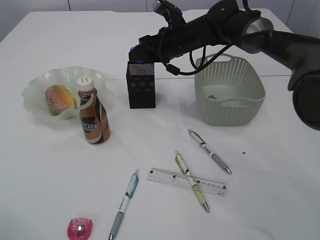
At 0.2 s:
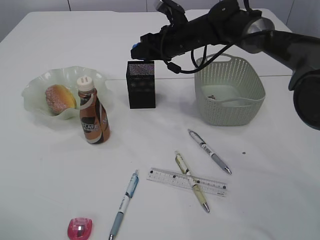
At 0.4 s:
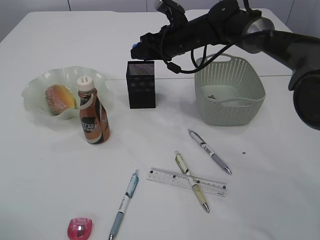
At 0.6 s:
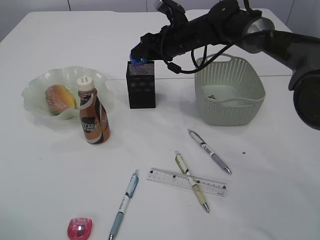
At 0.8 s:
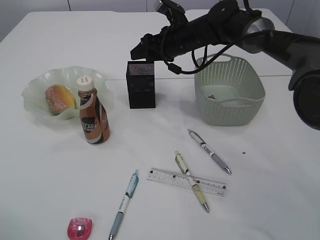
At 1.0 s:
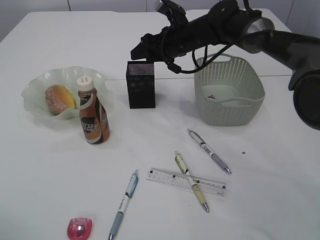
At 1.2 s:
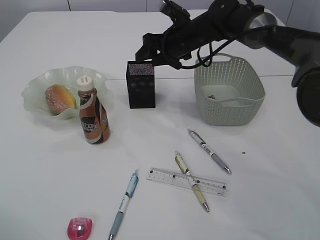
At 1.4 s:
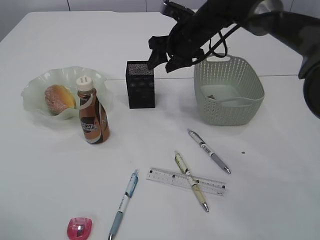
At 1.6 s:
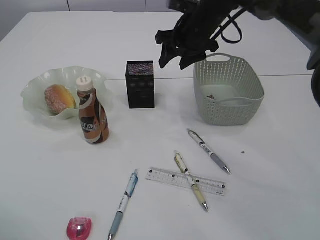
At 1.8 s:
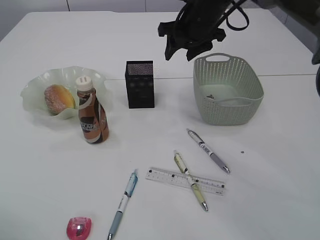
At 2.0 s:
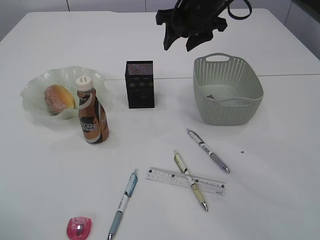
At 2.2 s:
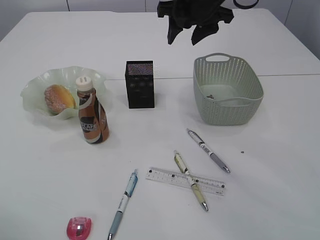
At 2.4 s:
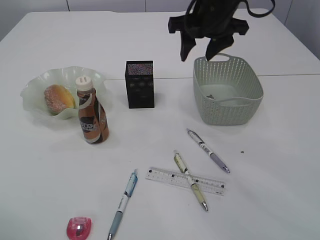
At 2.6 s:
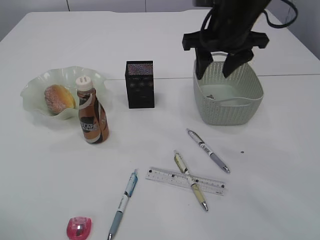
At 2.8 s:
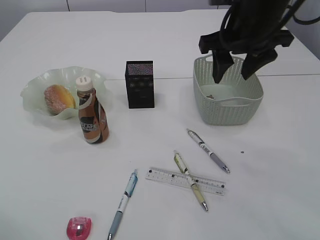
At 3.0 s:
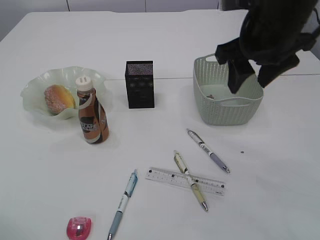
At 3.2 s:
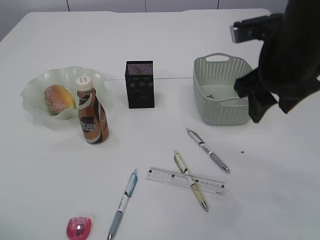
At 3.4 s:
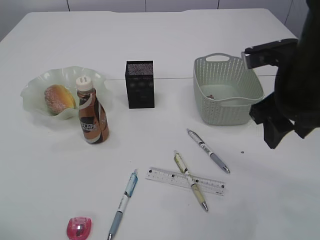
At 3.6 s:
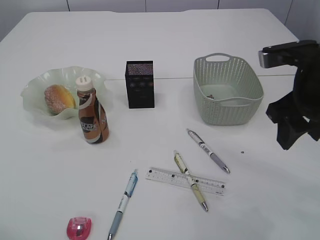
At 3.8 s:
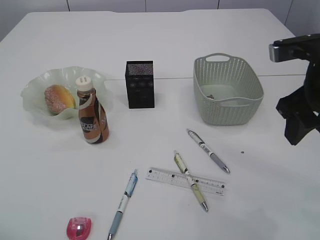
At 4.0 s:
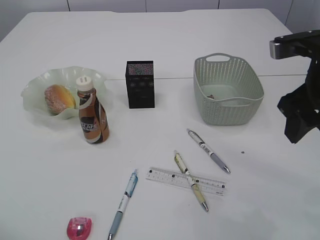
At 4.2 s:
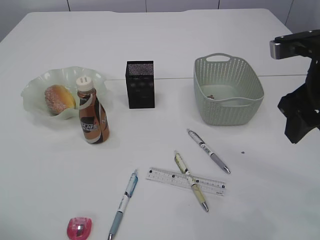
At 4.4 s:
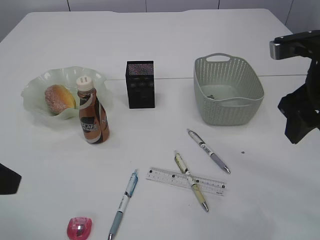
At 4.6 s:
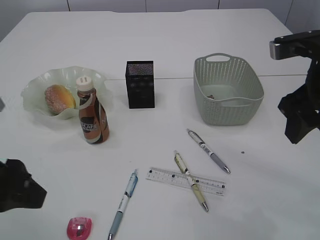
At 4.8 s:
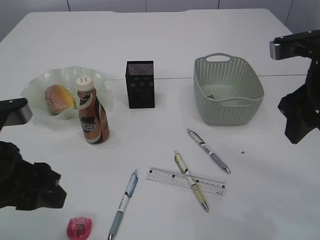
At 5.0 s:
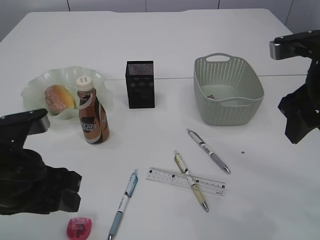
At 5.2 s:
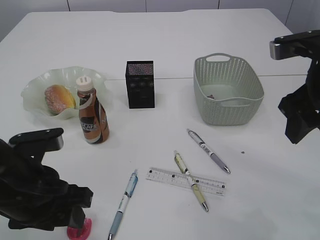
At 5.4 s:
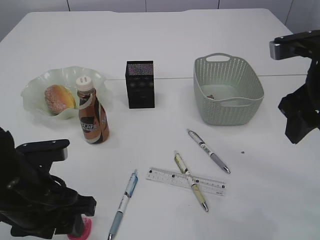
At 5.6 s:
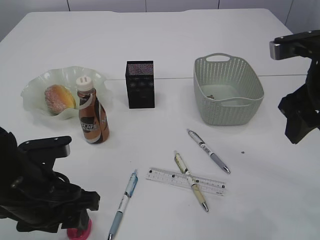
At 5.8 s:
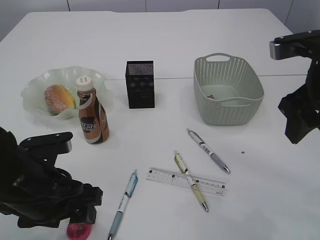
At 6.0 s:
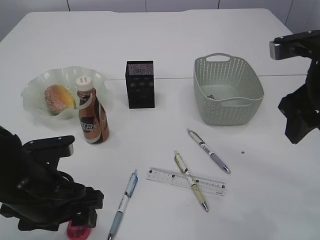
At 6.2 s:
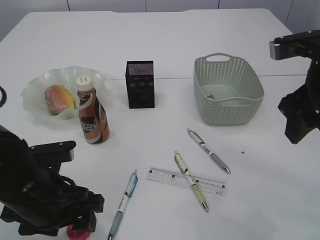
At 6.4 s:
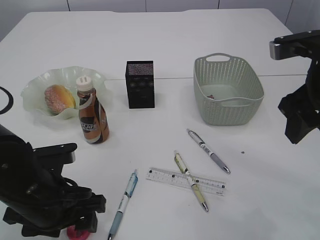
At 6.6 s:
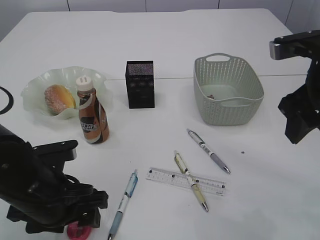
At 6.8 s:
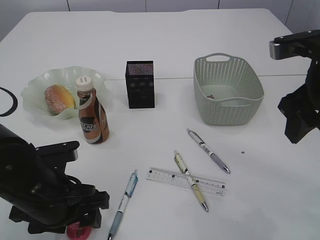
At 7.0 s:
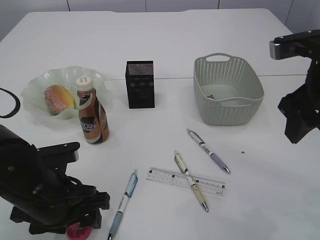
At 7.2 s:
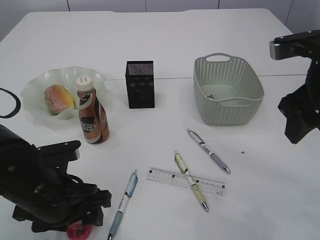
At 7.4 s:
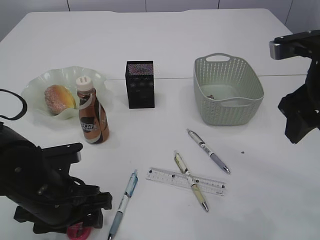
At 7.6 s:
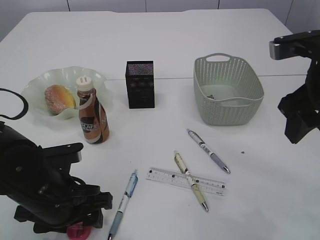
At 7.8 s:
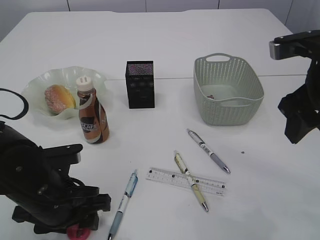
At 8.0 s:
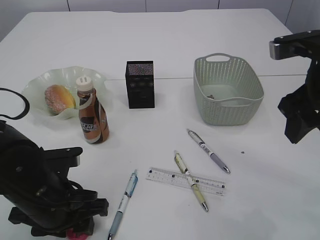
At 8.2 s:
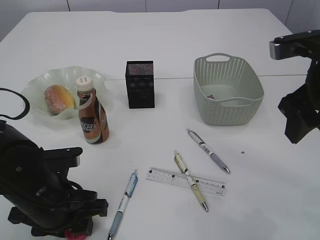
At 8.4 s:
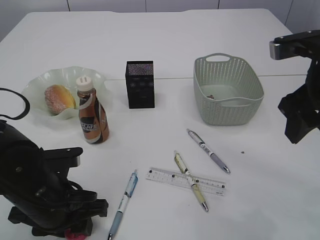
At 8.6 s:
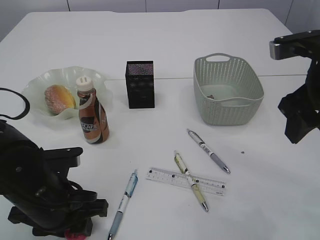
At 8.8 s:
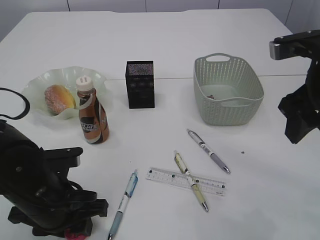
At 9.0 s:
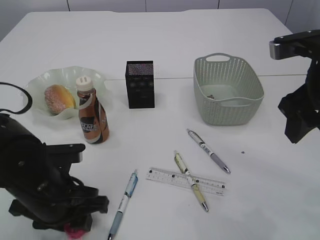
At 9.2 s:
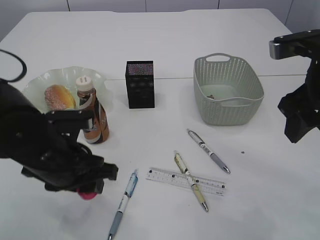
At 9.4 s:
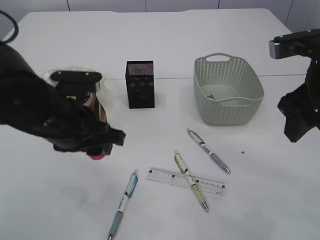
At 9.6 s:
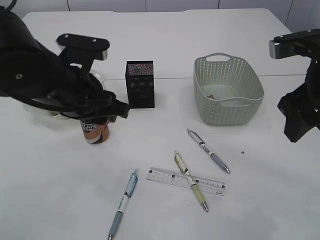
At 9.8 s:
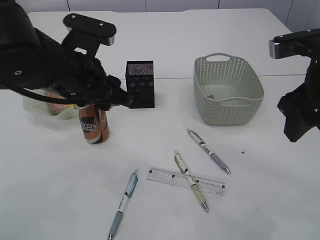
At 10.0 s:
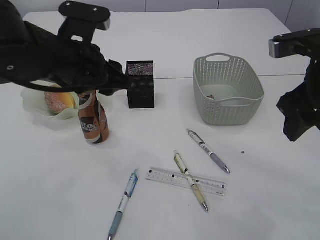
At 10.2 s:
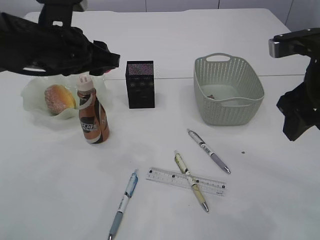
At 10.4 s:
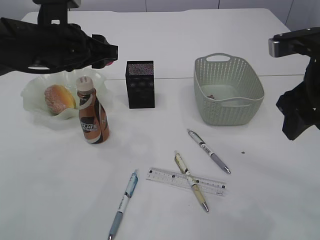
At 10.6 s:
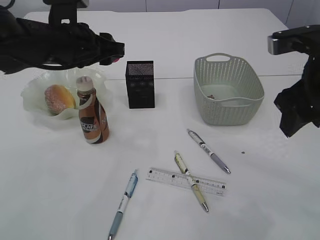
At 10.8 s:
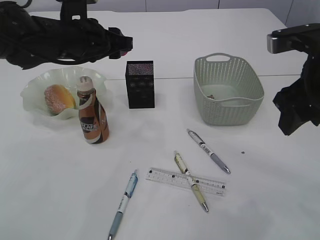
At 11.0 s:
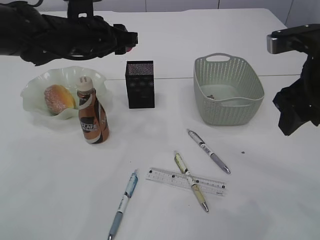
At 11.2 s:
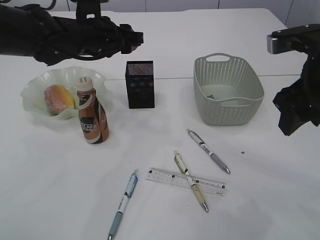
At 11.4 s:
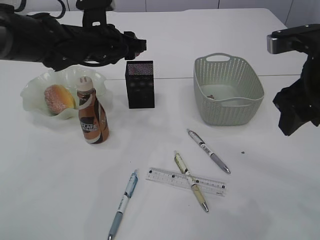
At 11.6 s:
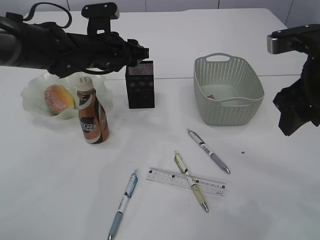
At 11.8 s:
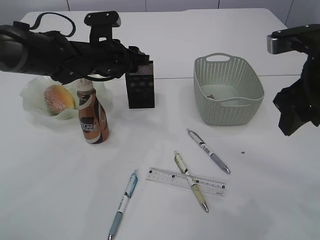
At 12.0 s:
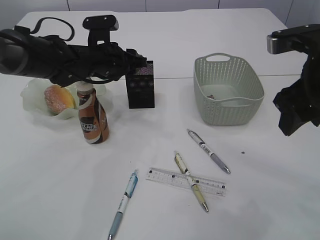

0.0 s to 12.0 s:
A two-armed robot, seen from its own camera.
Step, 1.4 to 9.2 s: Pick up the red pencil sharpener.
0.0 to 1.6 s: The right gripper moves about 5 cm.
1.6 to 3.0 s: The right gripper heads backward and upward, covering some 20 cm.
3.0 to 4.4 s: The left gripper is displaced to the right by some 5 cm, while the right gripper travels backward and to the right by roughly 10 cm.
4.4 to 6.0 s: The left gripper moves downward and to the right, some 15 cm, and opens.
6.0 to 7.6 s: The grippers move only a little.
7.6 to 9.0 s: The left gripper closes.
9.0 to 10.4 s: The left gripper heads upward and forward, covering some 20 cm.
10.4 to 12.0 s: The left gripper goes approximately 10 cm forward and downward.

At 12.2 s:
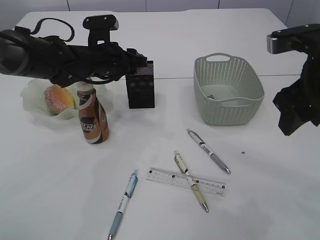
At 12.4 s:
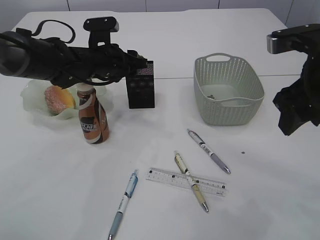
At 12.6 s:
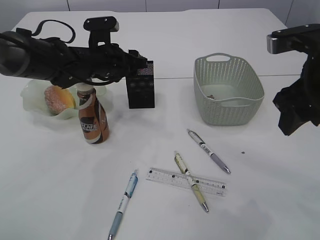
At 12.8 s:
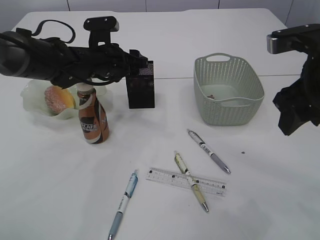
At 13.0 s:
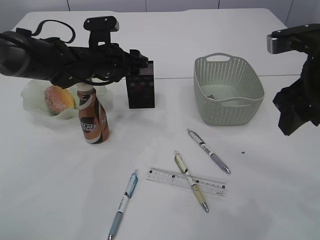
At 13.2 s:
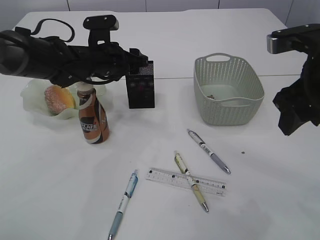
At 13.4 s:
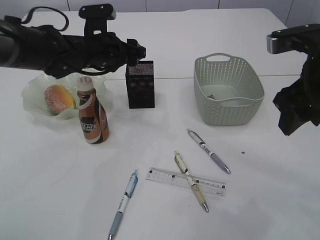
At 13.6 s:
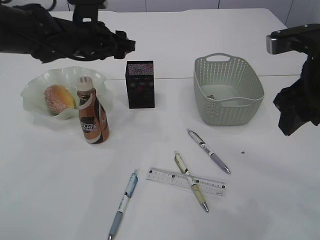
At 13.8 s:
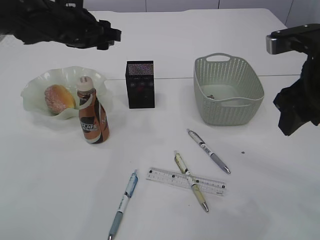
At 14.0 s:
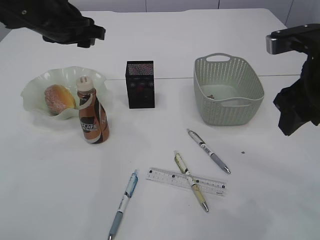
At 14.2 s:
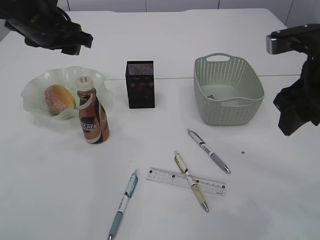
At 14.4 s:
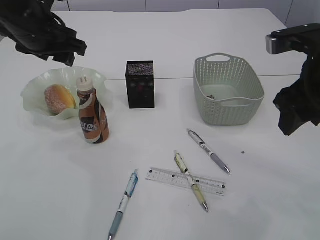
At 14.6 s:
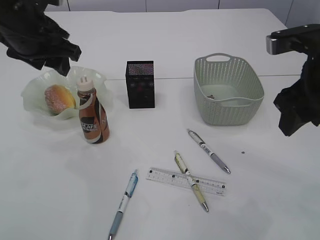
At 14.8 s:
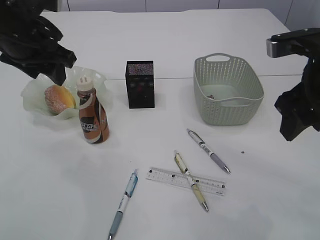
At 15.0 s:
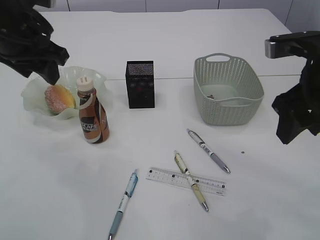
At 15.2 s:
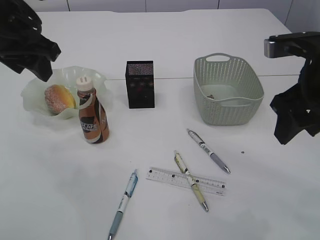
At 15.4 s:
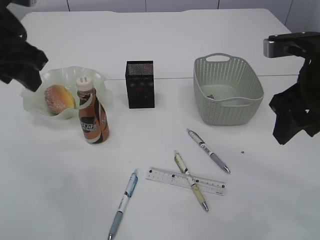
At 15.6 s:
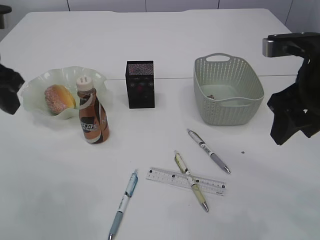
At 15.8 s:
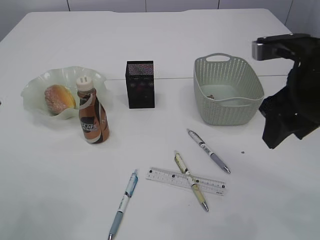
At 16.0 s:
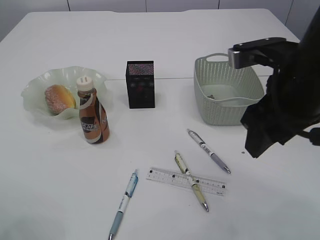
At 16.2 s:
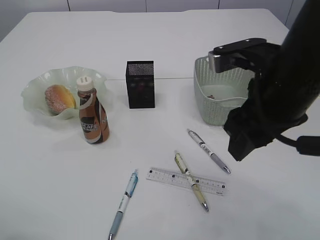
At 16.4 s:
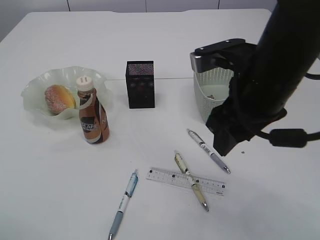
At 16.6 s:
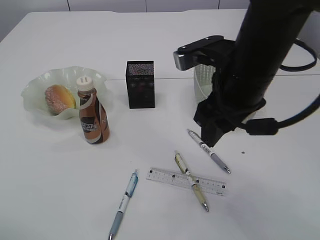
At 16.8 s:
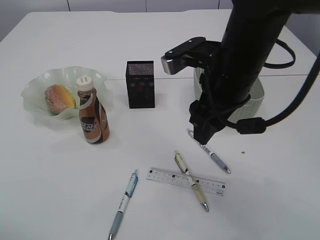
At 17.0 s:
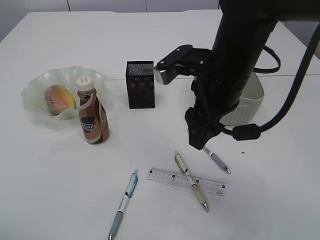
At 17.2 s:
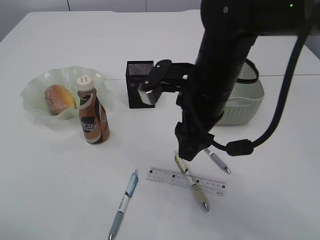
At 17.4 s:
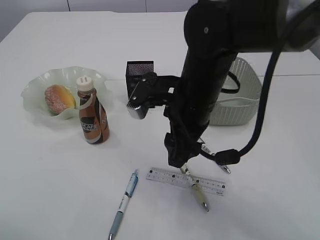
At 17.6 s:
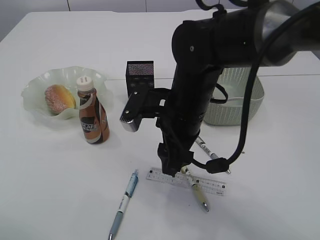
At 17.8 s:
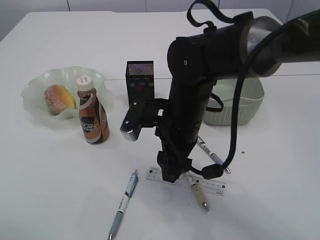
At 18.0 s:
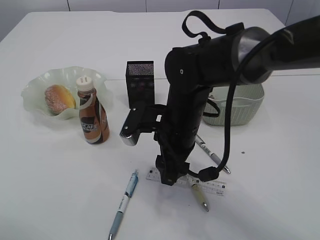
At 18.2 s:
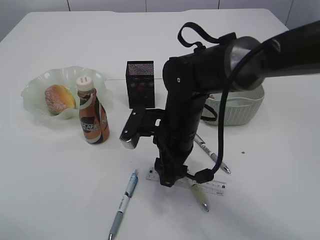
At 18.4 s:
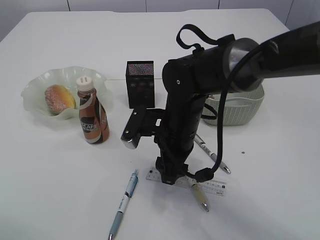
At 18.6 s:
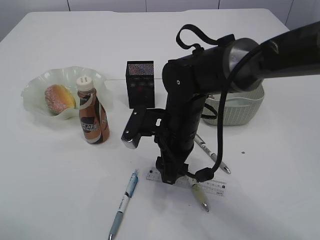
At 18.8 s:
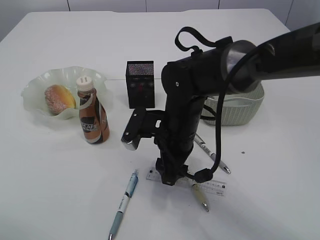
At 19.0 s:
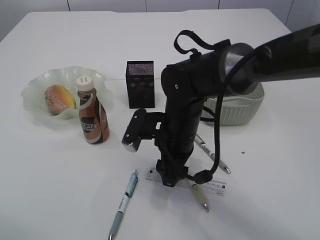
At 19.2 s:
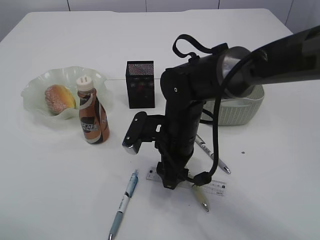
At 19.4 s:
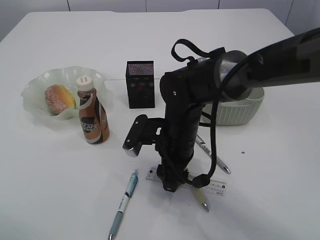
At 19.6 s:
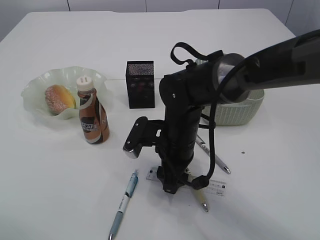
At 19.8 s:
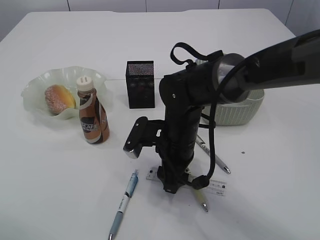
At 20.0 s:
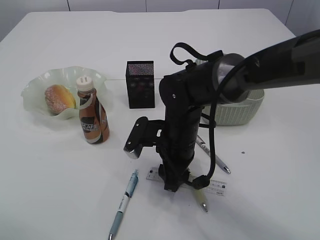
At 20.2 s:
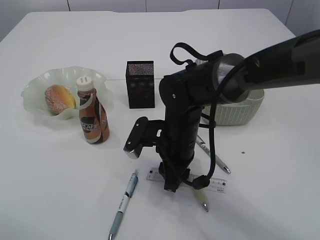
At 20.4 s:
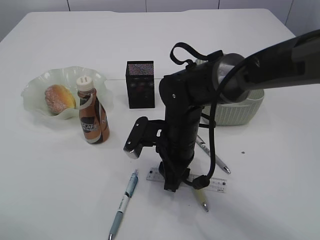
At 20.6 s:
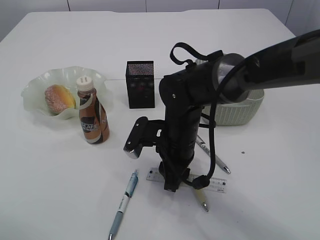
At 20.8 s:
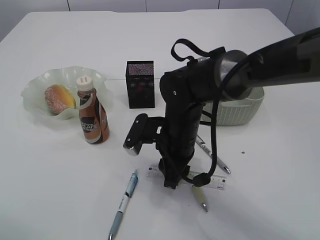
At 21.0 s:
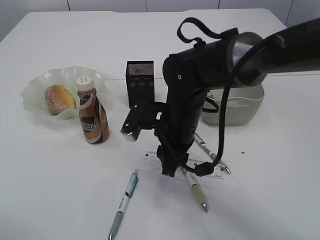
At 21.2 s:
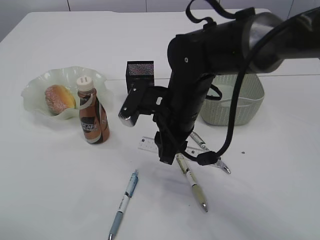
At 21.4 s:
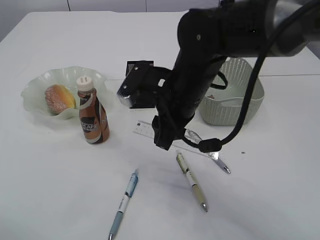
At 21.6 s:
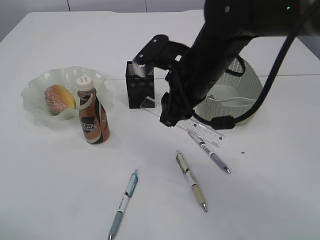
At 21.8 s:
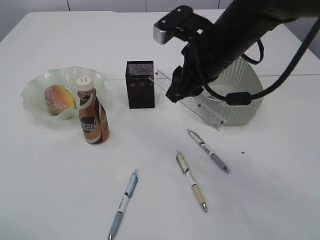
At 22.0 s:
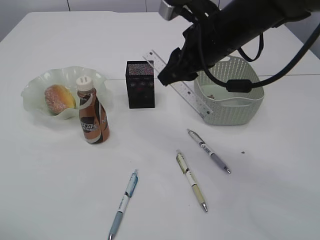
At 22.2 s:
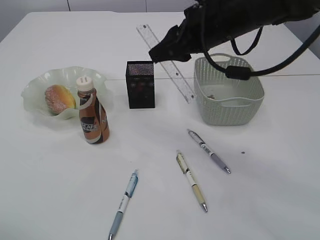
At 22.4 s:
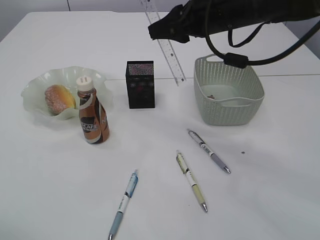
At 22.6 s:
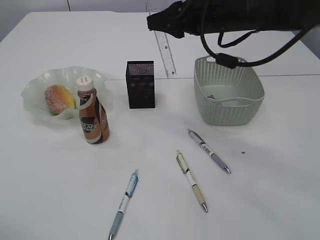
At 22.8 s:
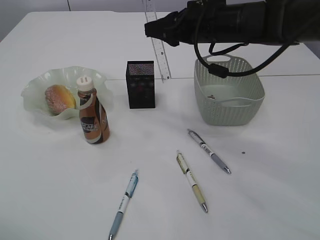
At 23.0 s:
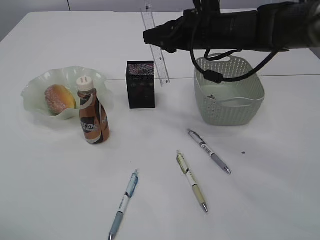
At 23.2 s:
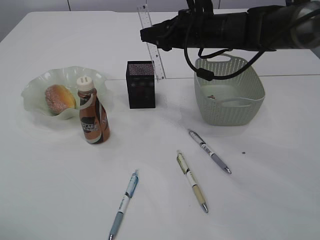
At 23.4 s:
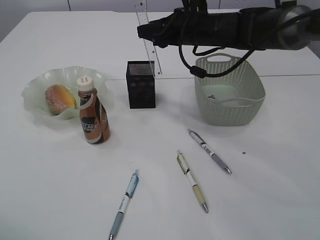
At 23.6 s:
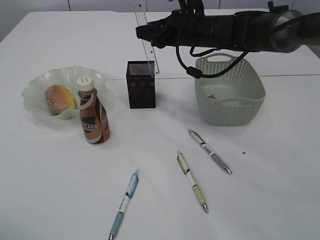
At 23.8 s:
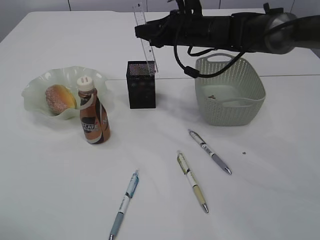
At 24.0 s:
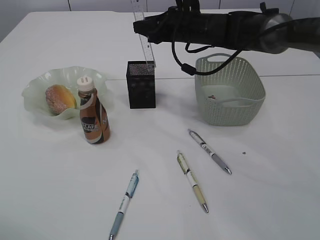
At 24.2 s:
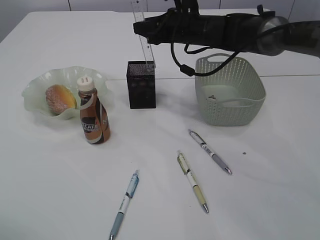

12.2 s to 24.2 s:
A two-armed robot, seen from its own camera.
Step, 13.4 to 21.4 s: pick up the ruler.
12.2 to 13.8 s: The left gripper shifts approximately 10 cm upward, and opens its fingers.
13.8 to 15.2 s: The left gripper shifts about 10 cm backward and upward.
15.2 to 16.6 s: The left gripper is displaced backward and to the left by some 20 cm. The right gripper travels to the left by some 10 cm.
16.6 to 18.2 s: The right gripper goes about 15 cm downward and to the left.
18.2 to 19.8 s: There are only small adjustments of the grippers.
19.8 to 21.2 s: The right gripper is displaced upward by some 5 cm, and closes up.
21.2 to 22.6 s: The right gripper heads upward, to the right and forward, covering about 15 cm.
22.6 to 24.2 s: The right gripper travels forward and downward by approximately 15 cm.
